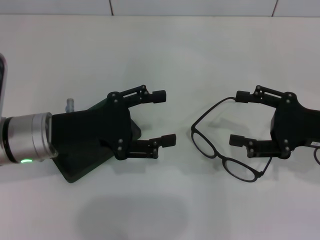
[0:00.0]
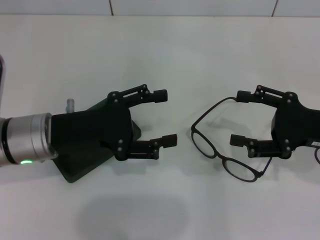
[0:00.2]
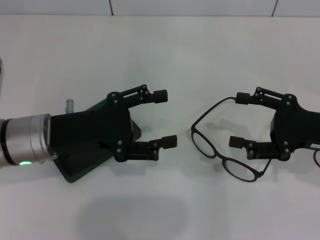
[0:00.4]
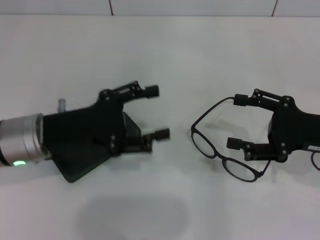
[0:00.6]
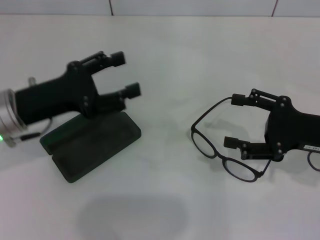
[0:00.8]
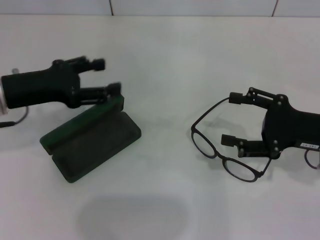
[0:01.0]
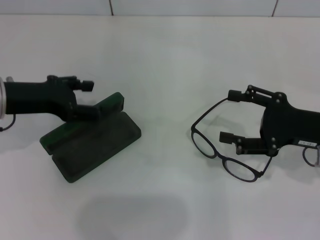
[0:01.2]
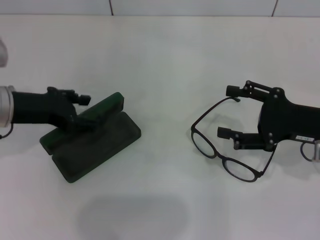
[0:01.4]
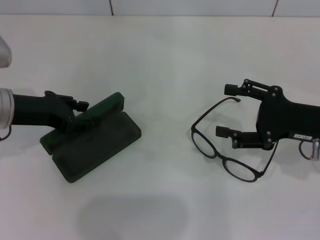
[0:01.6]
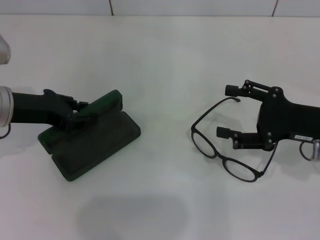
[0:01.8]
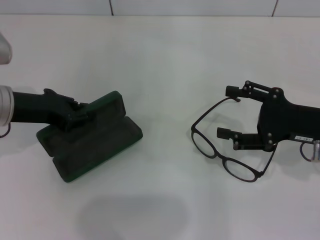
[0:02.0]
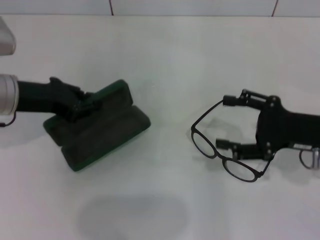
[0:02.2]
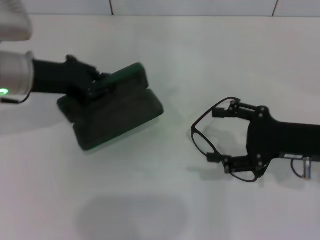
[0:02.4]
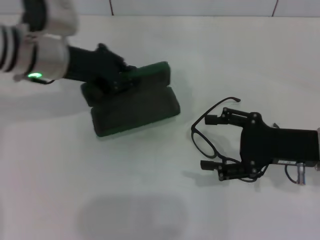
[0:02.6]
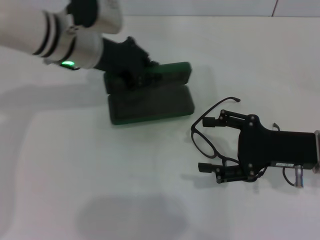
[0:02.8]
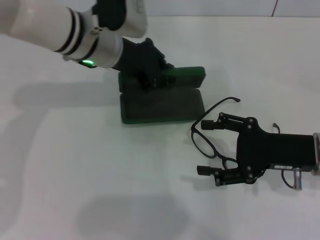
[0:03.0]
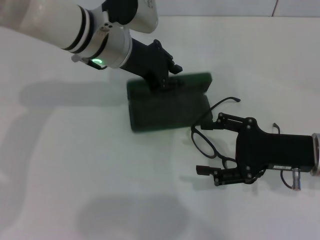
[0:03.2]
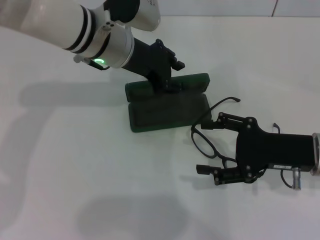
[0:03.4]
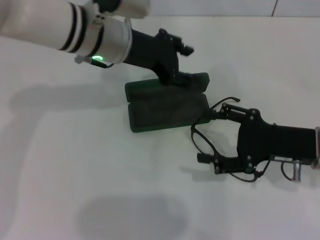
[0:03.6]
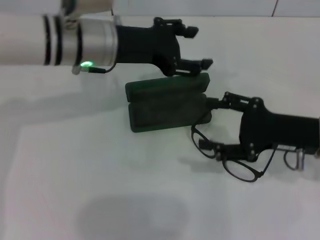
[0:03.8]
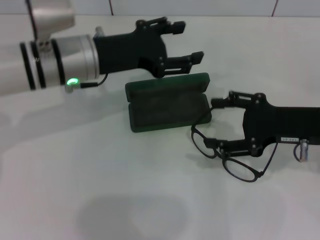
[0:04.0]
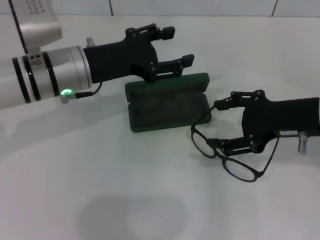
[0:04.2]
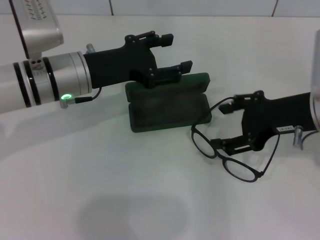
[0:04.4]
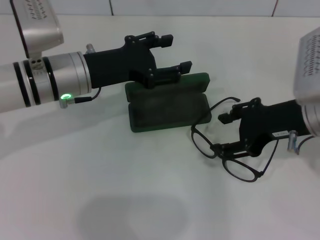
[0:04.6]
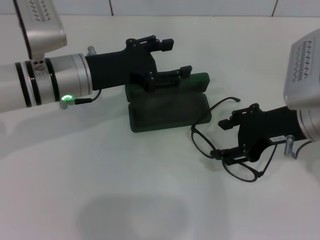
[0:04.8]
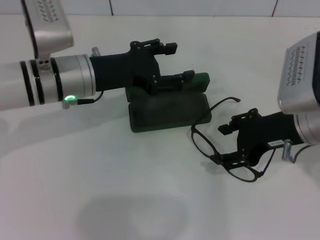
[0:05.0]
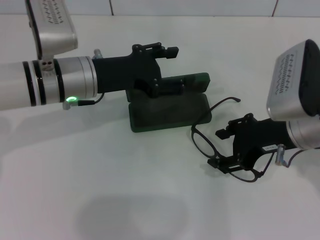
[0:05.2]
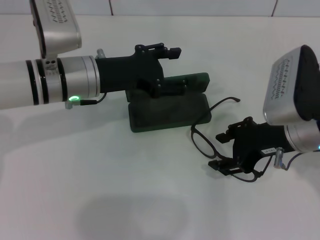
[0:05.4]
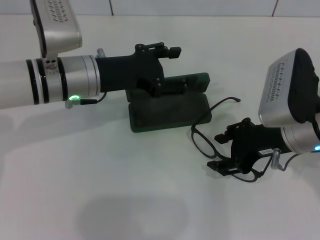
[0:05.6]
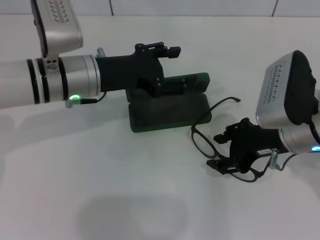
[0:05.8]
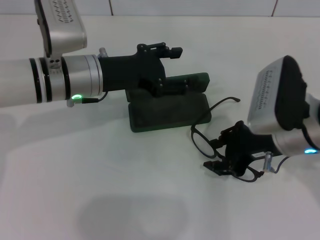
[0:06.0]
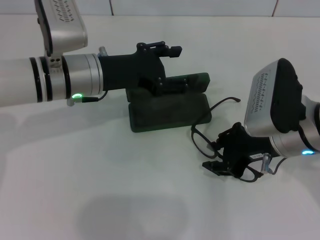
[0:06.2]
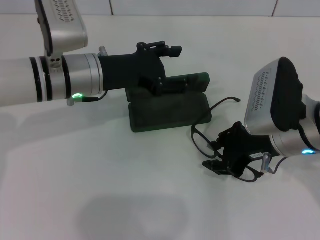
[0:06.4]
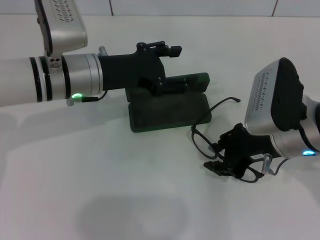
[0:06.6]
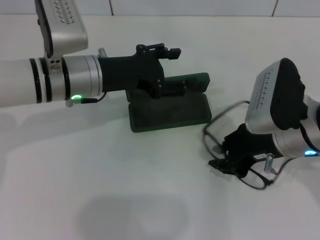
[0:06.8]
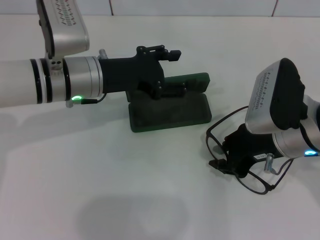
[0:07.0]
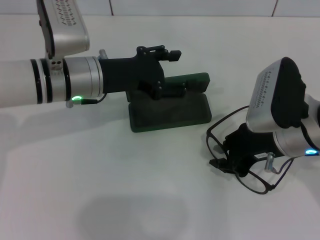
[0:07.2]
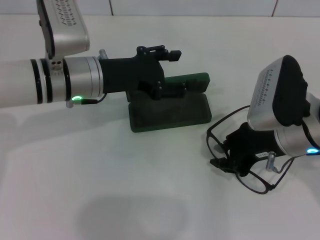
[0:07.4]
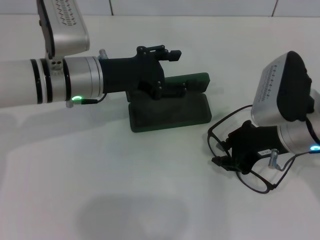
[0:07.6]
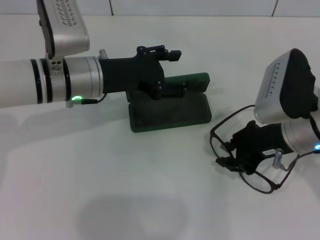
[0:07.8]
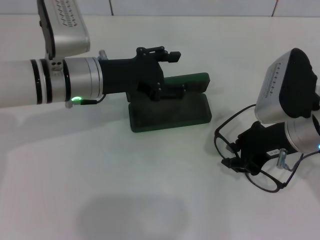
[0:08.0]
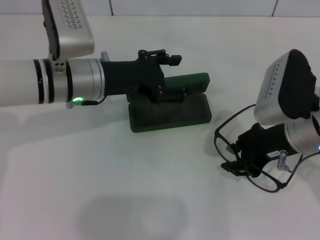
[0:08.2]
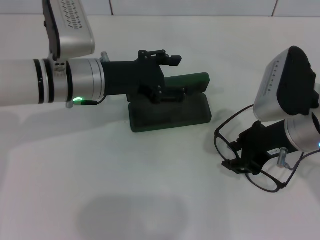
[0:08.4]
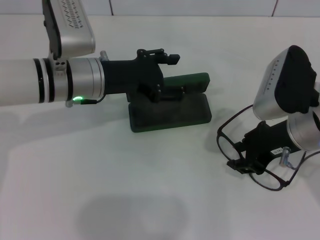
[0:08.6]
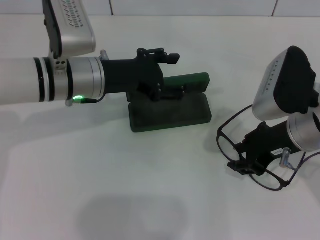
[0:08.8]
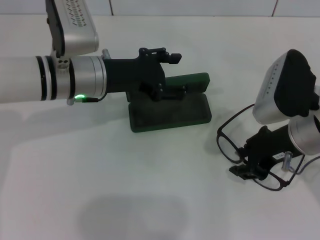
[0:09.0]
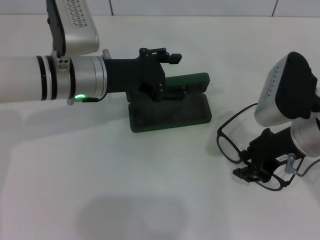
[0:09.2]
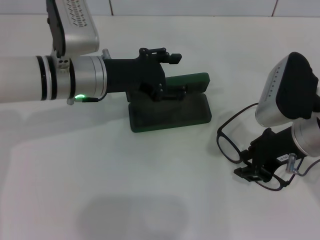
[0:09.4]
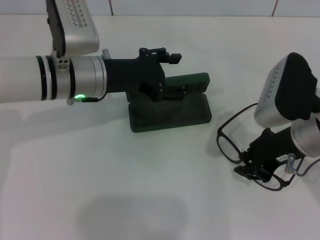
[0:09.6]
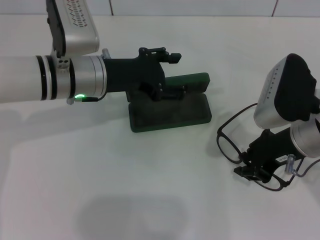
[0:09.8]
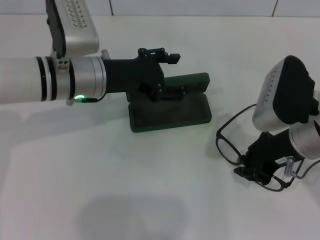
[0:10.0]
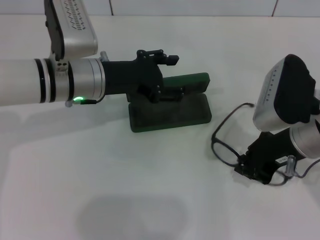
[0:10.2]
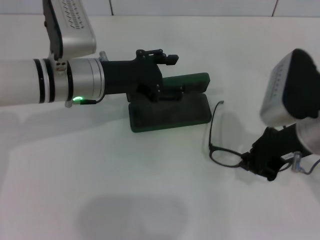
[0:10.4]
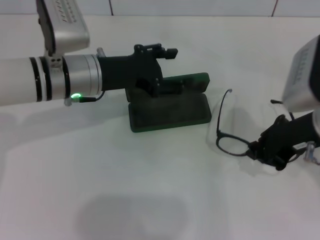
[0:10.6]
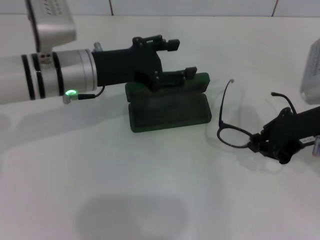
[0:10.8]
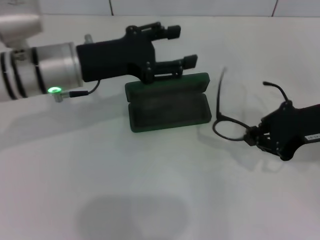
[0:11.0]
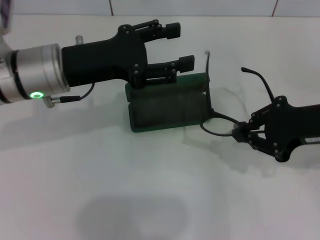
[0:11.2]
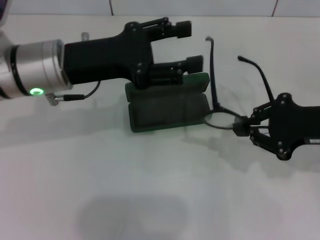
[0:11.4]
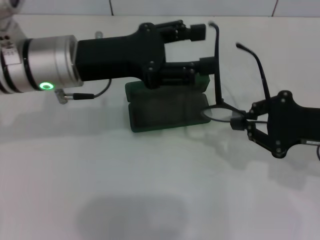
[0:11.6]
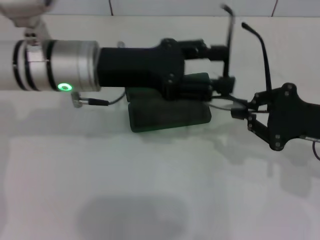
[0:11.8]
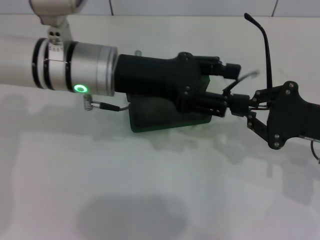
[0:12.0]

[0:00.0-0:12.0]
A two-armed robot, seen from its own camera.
Step, 0:00.0 to 0:02.0: Grab the glasses case with your left hand.
Step, 0:02.2 to 0:03.2: Place the glasses case in the center of the table with your left hand.
Step, 0:03.6 to 0:10.2: Grab the eyeglass frame with your right hand.
0:00.0 to 0:01.6: The left gripper travels to the left by roughly 5 cm.
0:01.6 to 0:03.0: The left gripper heads to the right and forward, covering roughly 15 cm, and closes up.
0:03.0 to 0:04.4: The right gripper heads upward, covering roughly 10 cm. Meanwhile the left gripper shifts about 5 cm backward, and opens up.
0:04.4 to 0:06.0: The right gripper moves approximately 5 cm.
0:06.0 to 0:07.6: The two grippers keep their place.
0:07.6 to 0:09.0: The grippers make only small movements.
0:09.0 to 0:10.4: Neither gripper changes place.
0:10.4 to 0:12.0: The right gripper goes roughly 10 cm to the right. The left gripper moves roughly 5 cm.

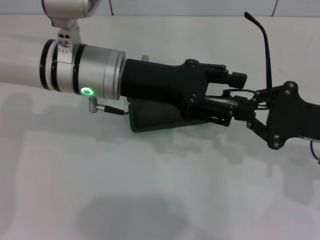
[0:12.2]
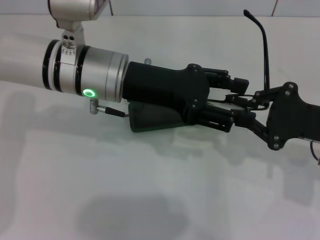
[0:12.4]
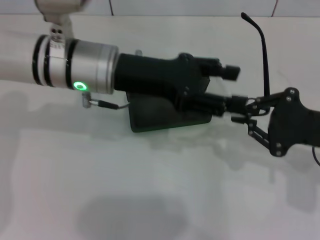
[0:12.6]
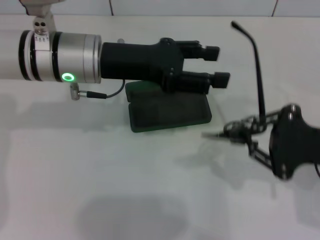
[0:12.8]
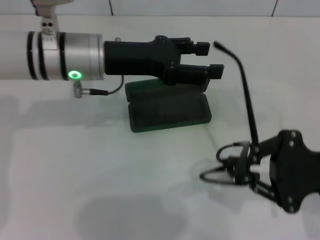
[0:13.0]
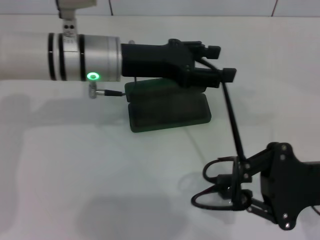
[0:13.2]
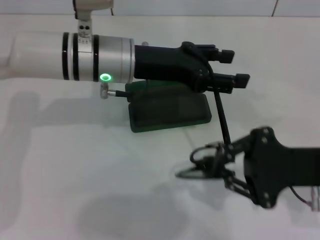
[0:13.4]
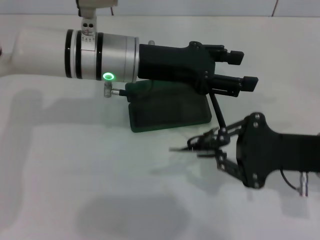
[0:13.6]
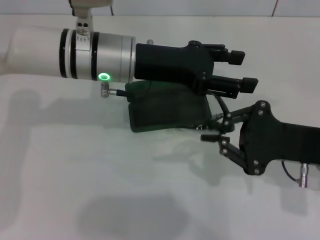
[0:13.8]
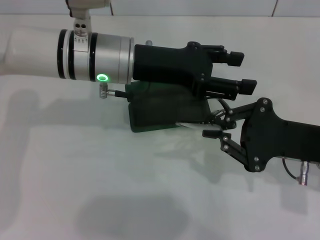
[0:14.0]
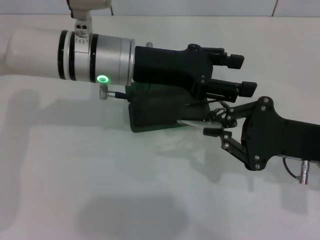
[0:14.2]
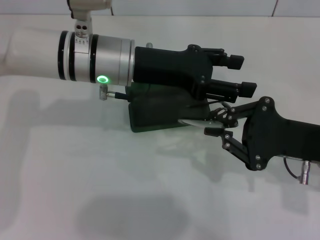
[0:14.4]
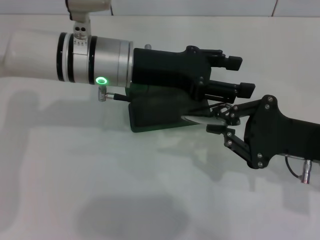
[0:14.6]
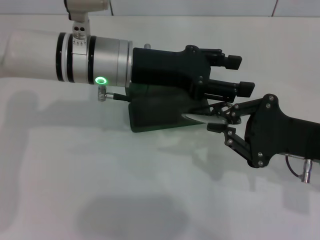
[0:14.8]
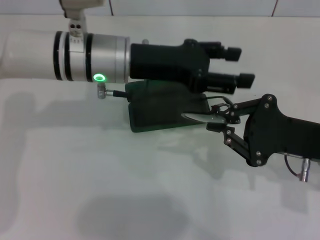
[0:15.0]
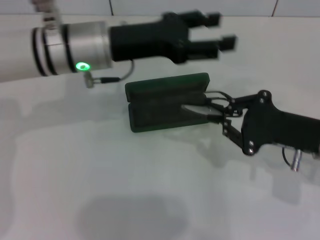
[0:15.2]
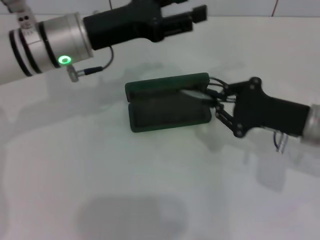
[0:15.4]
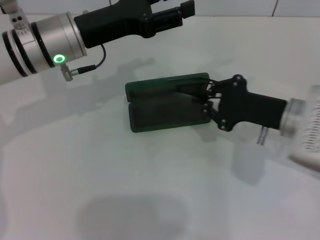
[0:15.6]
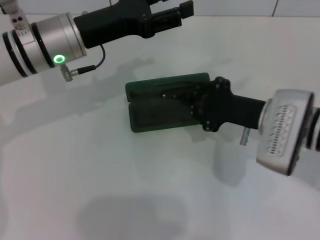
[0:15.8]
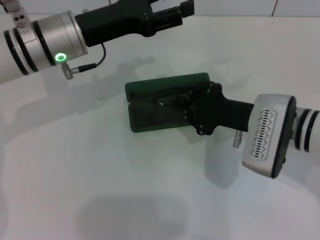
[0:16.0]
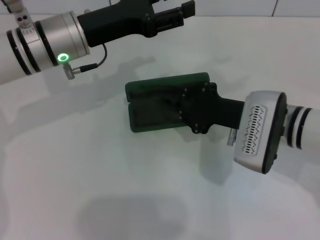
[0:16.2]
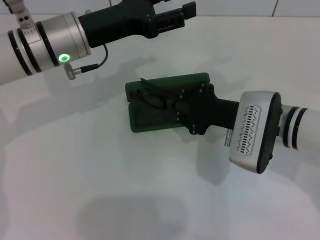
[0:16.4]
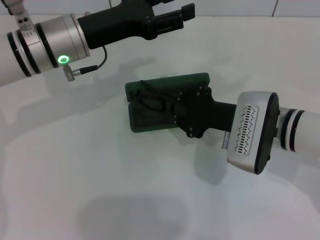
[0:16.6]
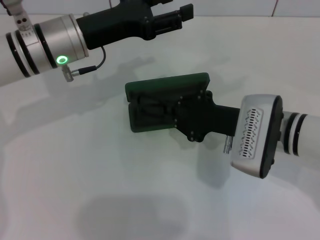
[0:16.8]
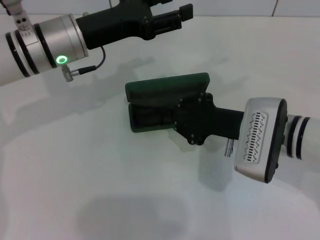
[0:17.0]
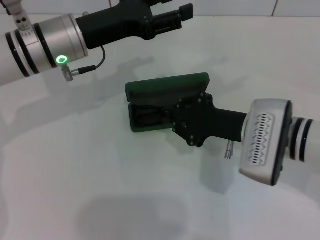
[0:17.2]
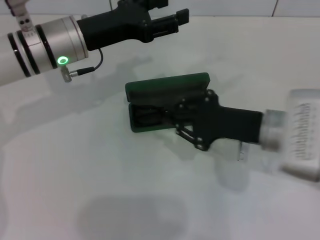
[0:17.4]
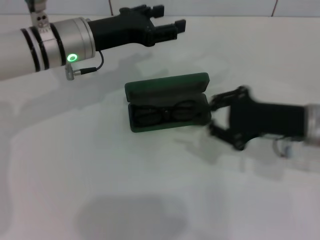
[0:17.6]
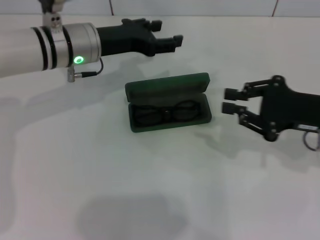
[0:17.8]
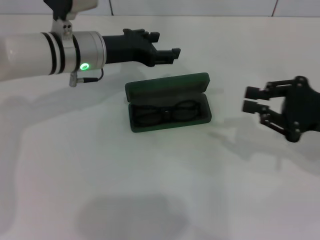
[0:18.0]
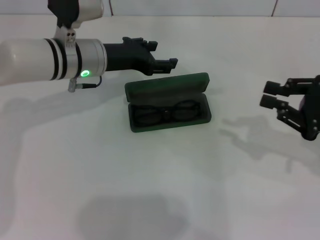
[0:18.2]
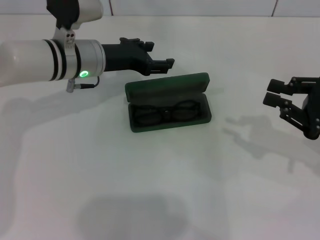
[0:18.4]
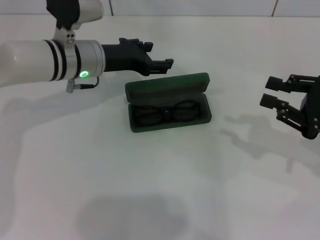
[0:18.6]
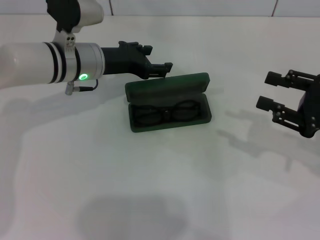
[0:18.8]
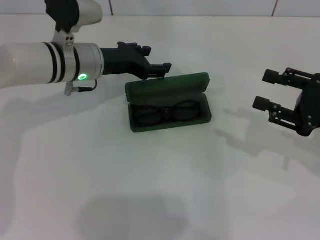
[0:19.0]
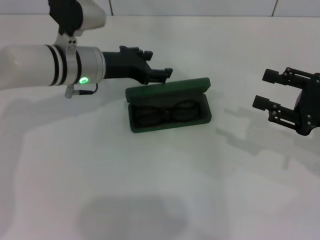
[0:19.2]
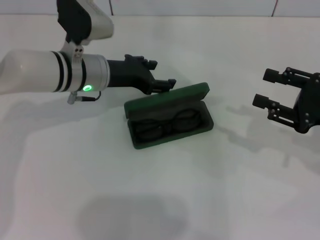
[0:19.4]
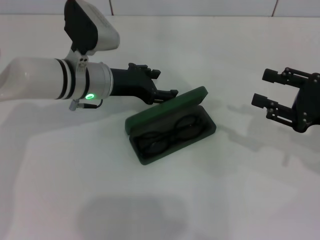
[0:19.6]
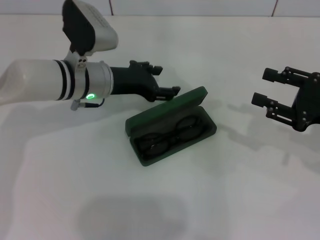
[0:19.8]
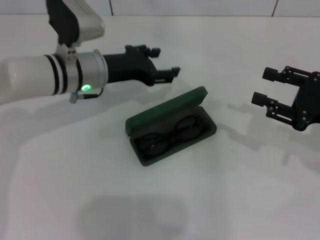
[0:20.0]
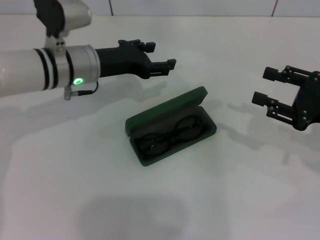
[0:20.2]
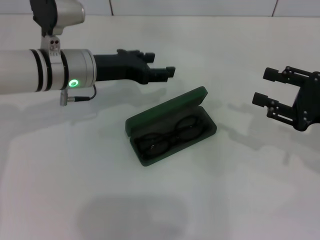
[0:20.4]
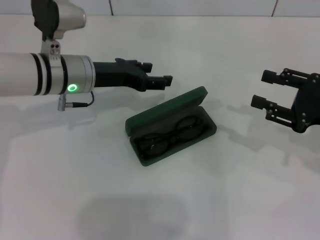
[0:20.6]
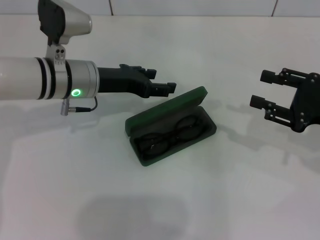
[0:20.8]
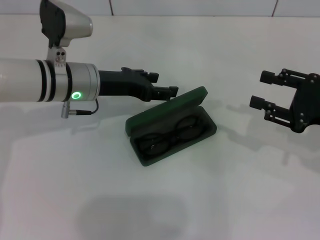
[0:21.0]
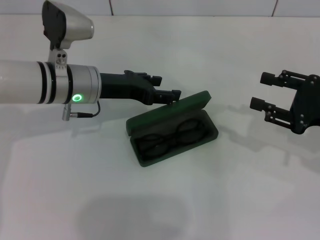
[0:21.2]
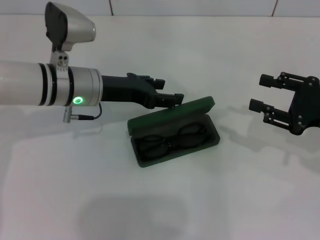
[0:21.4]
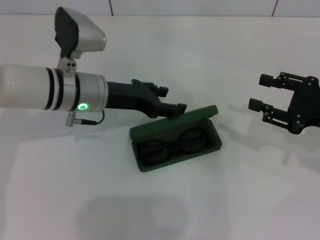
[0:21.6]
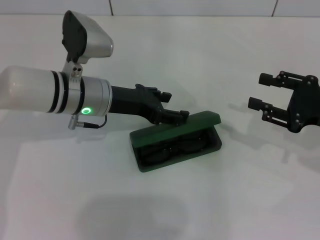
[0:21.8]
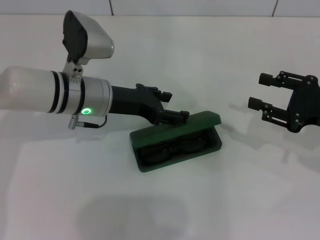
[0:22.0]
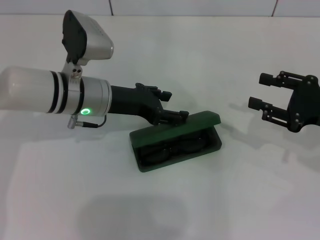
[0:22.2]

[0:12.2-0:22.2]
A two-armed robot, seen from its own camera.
Step, 0:12.2 to 0:14.8: Fold the frame with your left hand.
Step, 0:15.2 to 0:17.2: Put the glasses into the case with your right hand.
0:13.6 to 0:15.0: The grippers make only small movements.
0:15.0 to 0:16.4: The left gripper heads to the left, covering about 5 cm, while the right gripper is displaced to the left and forward by some 10 cm.
0:16.4 to 0:18.0: The right gripper goes approximately 15 cm to the right.
0:18.0 to 0:19.4: The right gripper opens its fingers.
0:19.4 to 0:22.2: The grippers move only a little.
